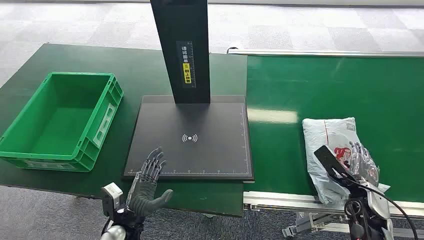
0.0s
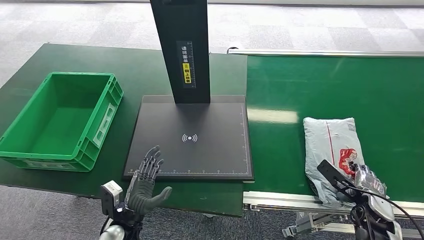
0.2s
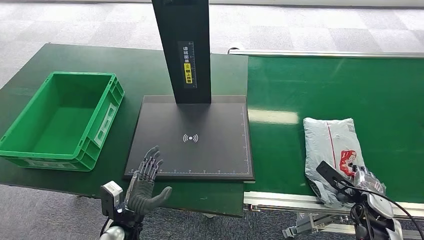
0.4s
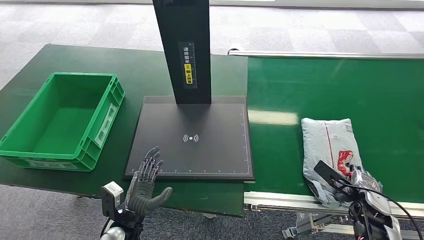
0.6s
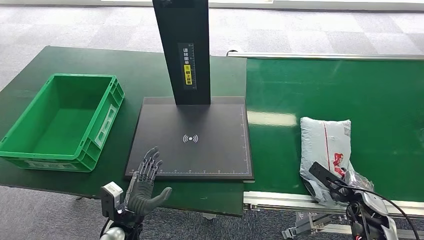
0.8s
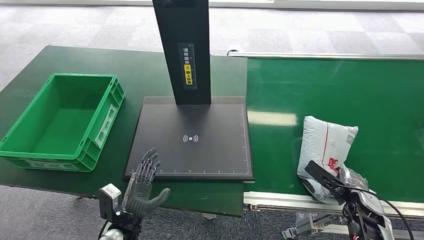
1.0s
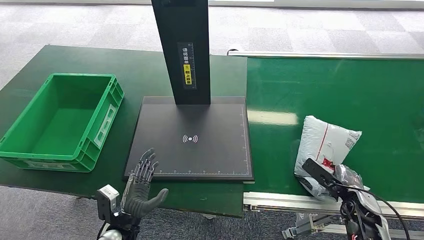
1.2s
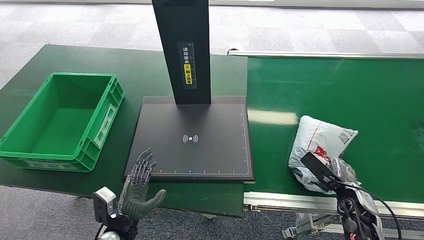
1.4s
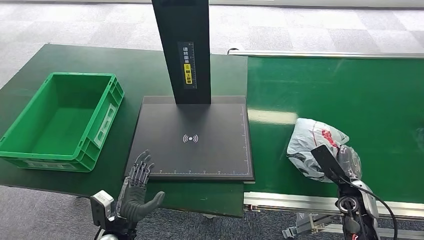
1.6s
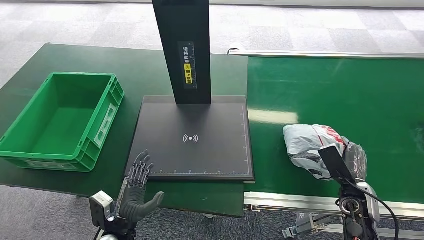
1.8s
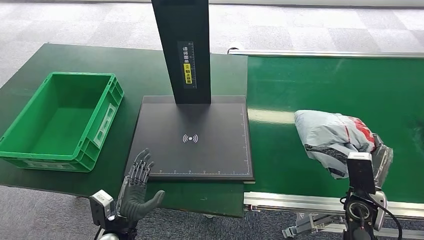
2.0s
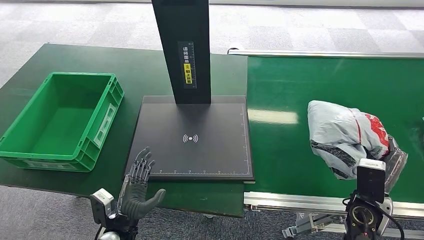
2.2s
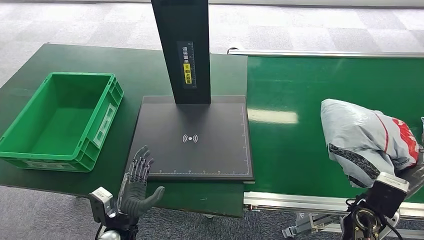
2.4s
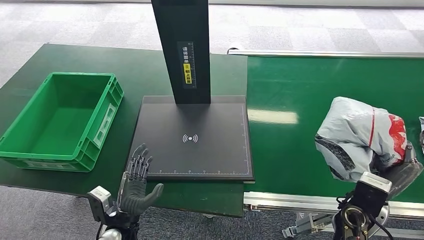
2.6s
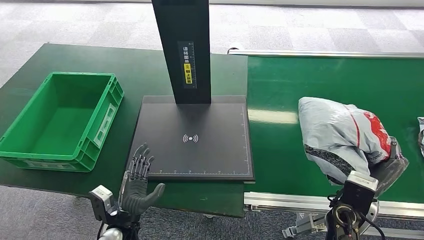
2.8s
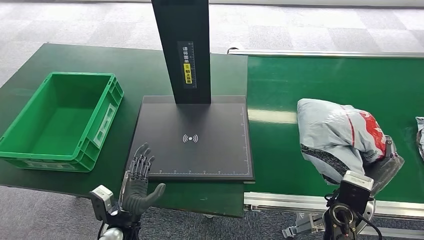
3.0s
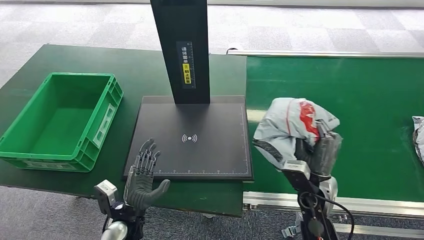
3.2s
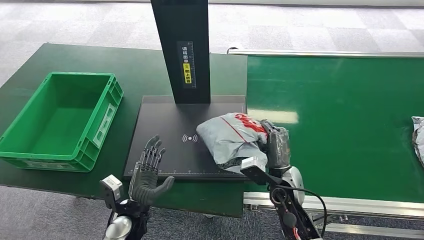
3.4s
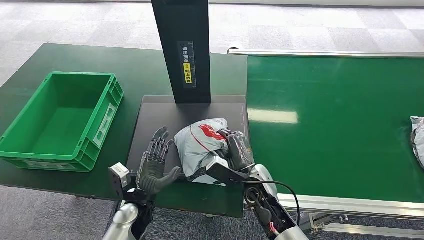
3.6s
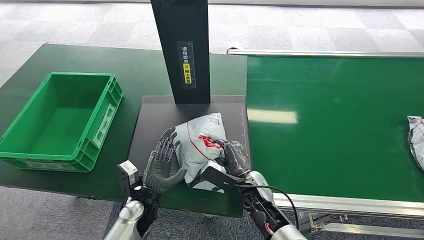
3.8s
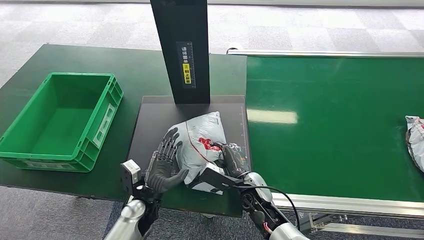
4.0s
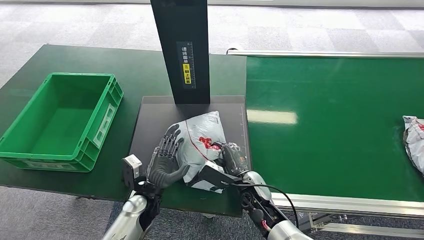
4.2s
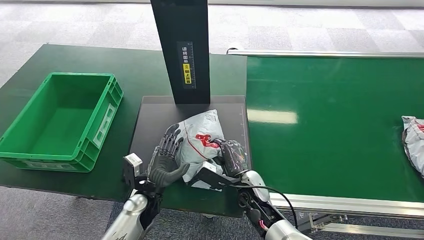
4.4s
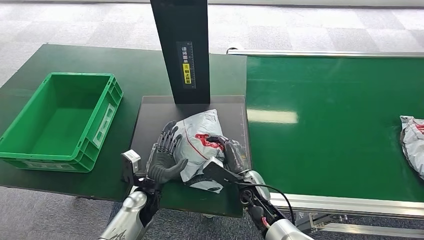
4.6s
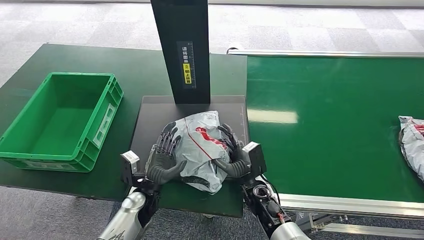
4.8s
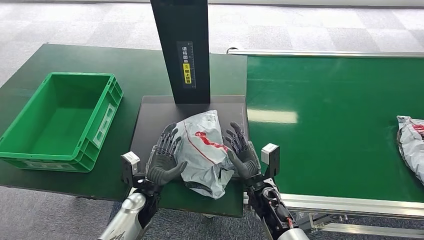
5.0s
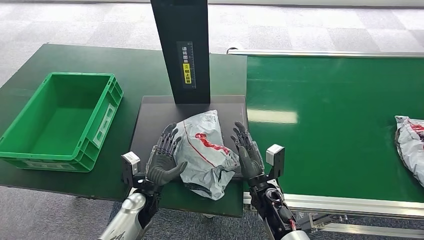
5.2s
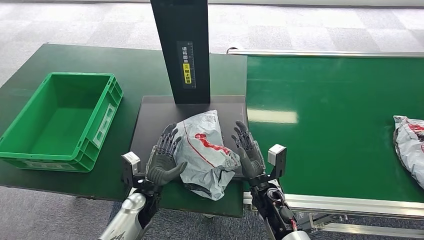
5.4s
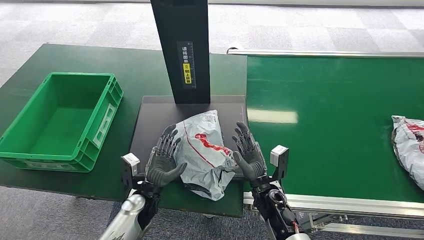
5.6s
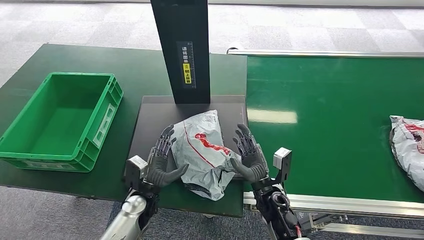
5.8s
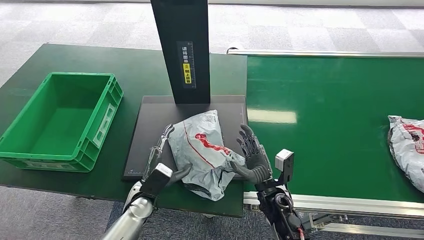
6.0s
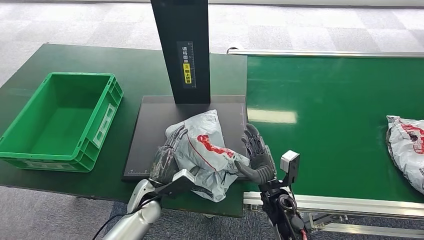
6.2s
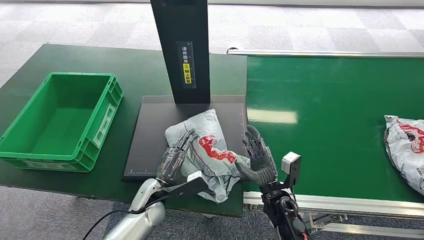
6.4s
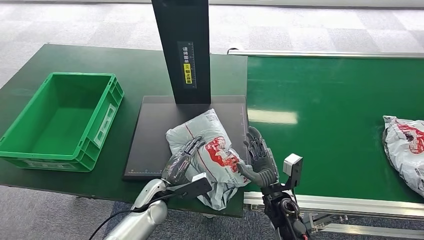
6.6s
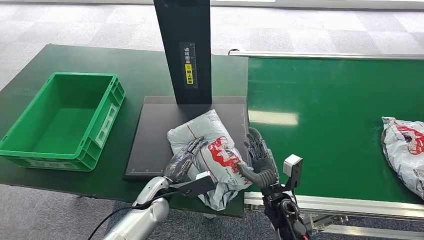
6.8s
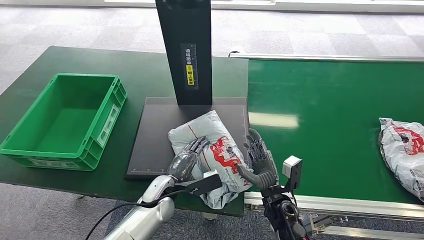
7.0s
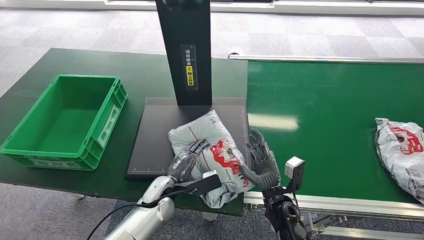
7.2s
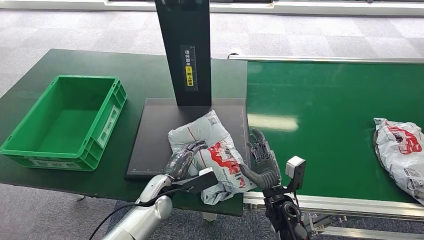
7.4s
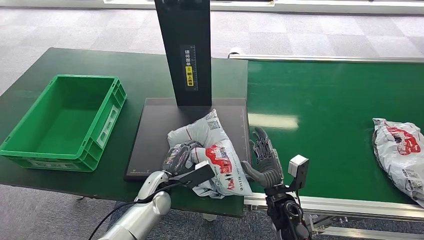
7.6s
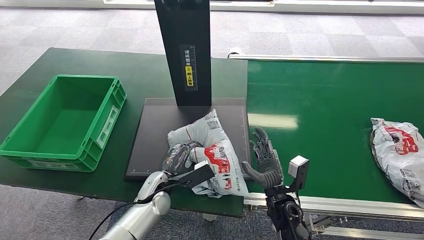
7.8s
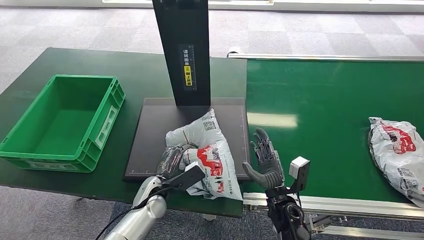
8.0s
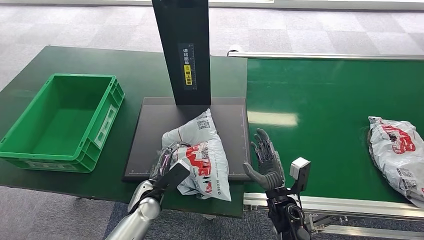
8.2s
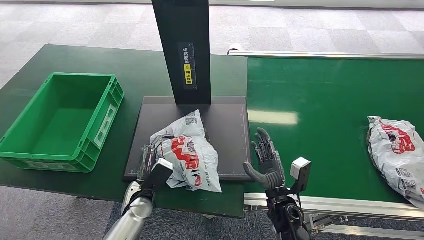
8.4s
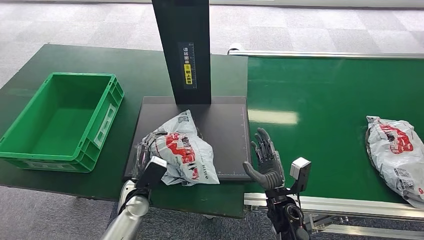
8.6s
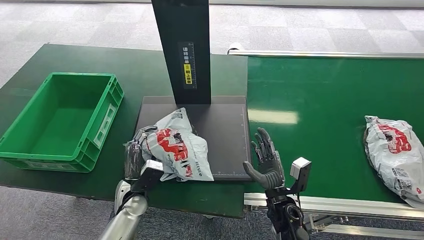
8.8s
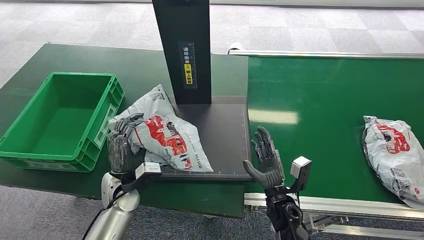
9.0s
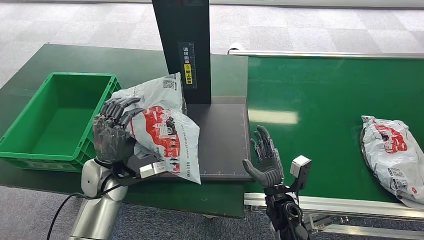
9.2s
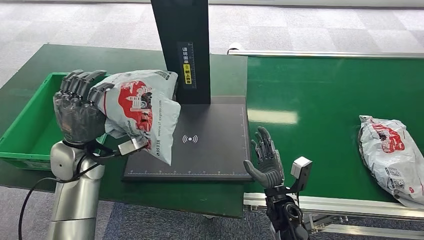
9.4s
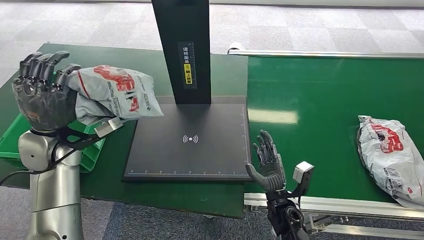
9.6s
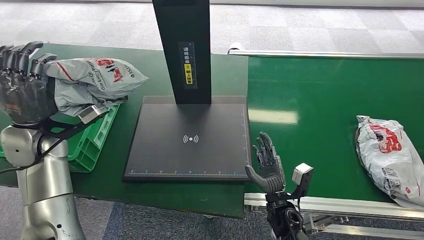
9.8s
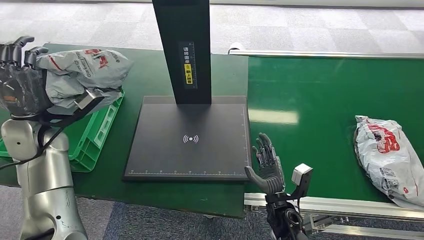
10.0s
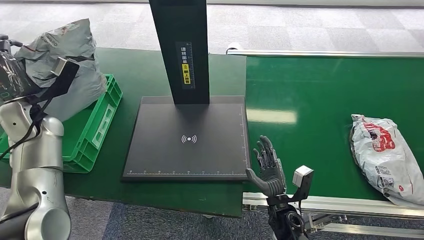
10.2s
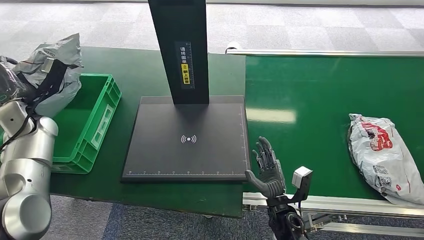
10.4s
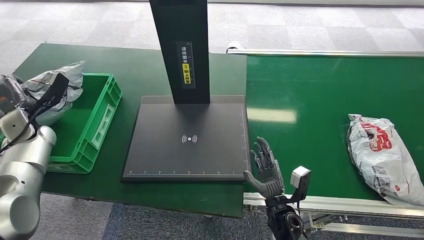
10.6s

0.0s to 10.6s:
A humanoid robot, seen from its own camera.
Step, 0.0s to 2.4s: Pick up the package from the conveyor belt.
Step, 2.8s to 5.4s: Place the package onto the inbound machine.
Step, 5.8s to 9.8s: Pick up the package from the inbound machine.
1.6s to 3.0s: The right hand moves to the left and upward, roughly 10 cm.
4.6s to 6.0s: The right hand moves approximately 5 cm.

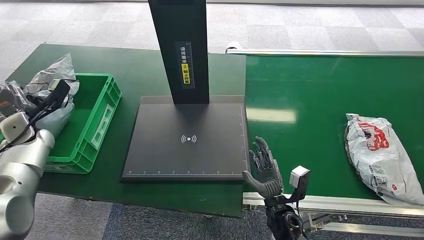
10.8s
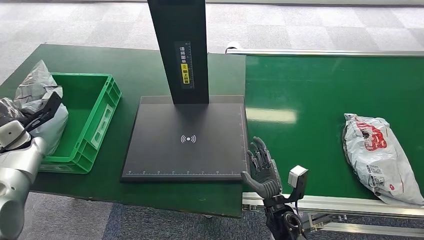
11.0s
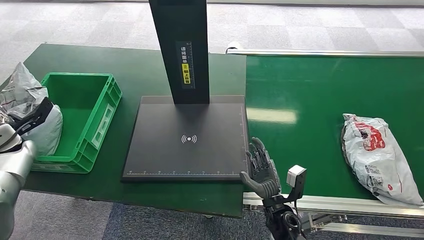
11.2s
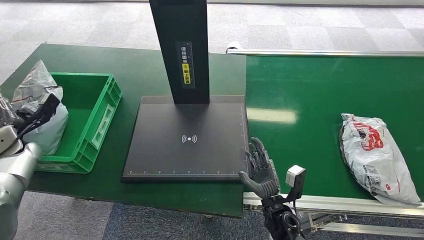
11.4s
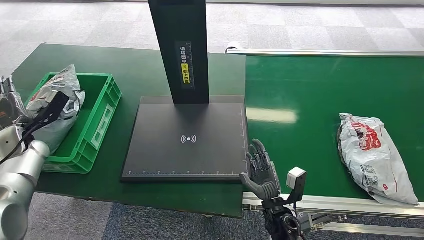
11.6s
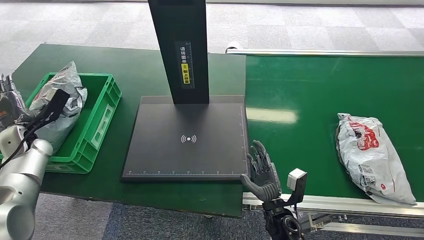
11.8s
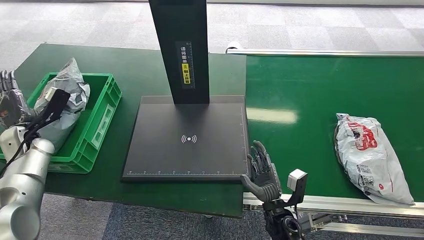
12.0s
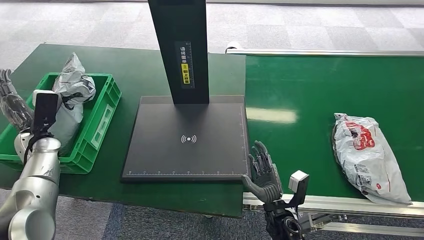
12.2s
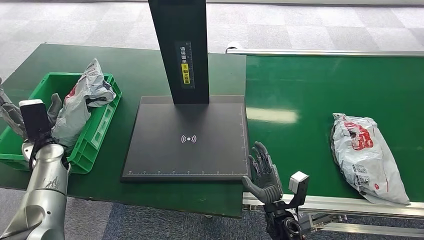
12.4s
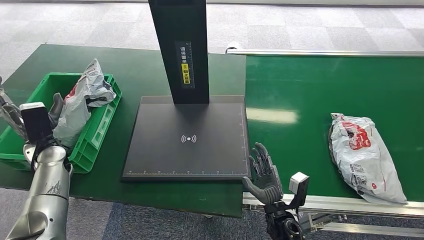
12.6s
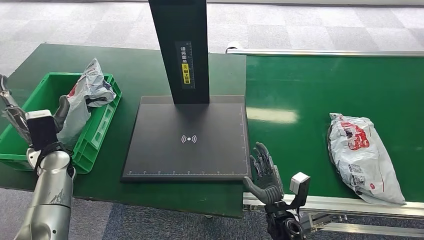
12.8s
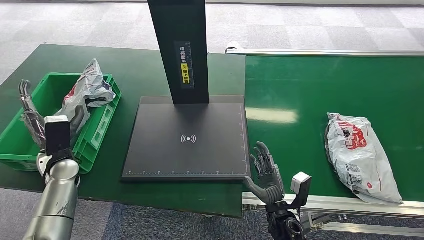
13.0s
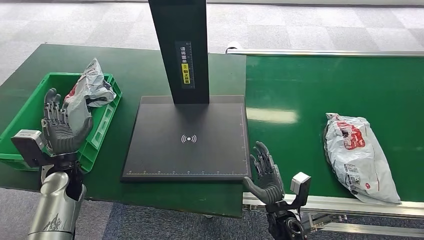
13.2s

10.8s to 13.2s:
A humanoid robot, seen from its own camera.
Step, 10.8s to 13.2s: Place the package into the parcel locker.
12.0s to 13.2s: The left hand is displaced to the right and backward by some 15 cm.
